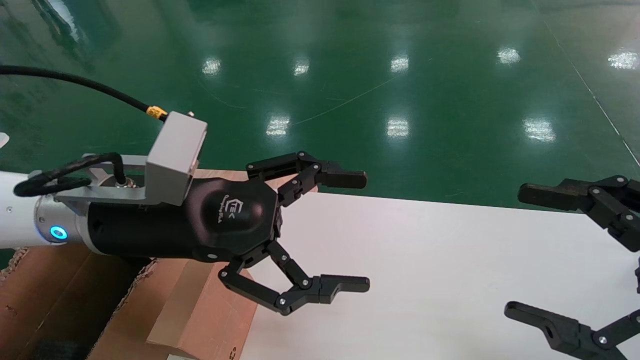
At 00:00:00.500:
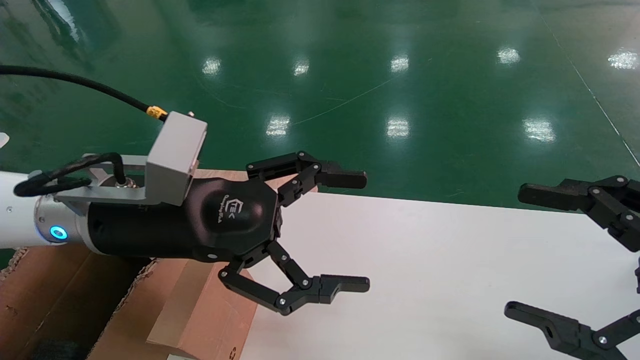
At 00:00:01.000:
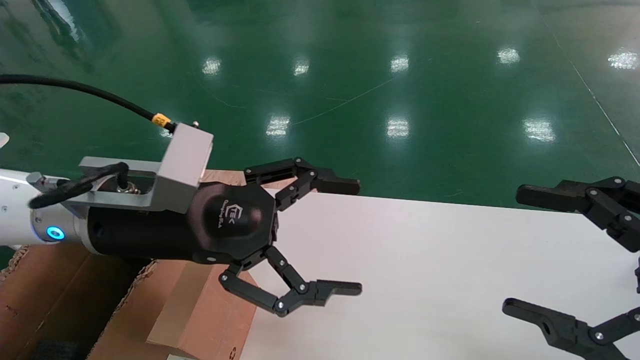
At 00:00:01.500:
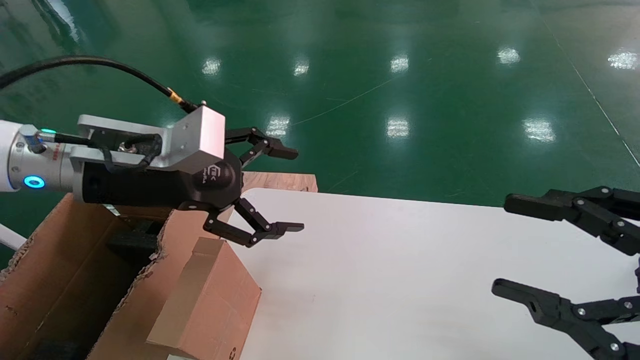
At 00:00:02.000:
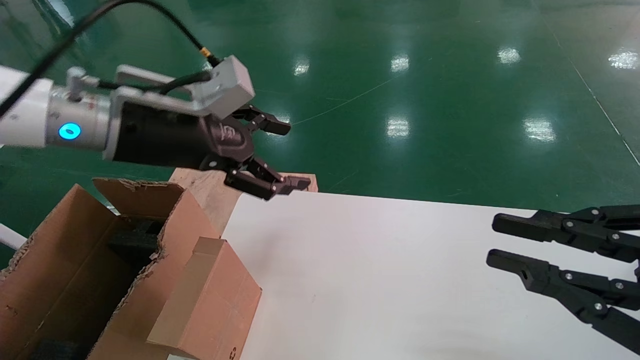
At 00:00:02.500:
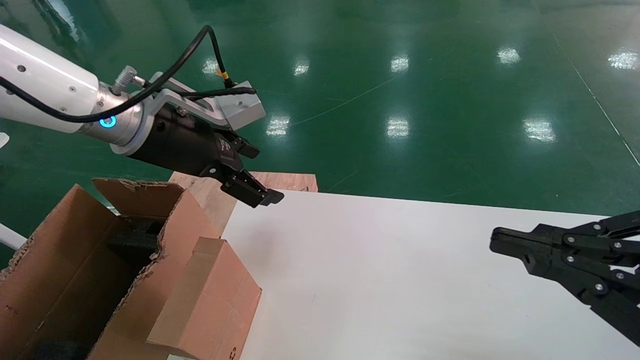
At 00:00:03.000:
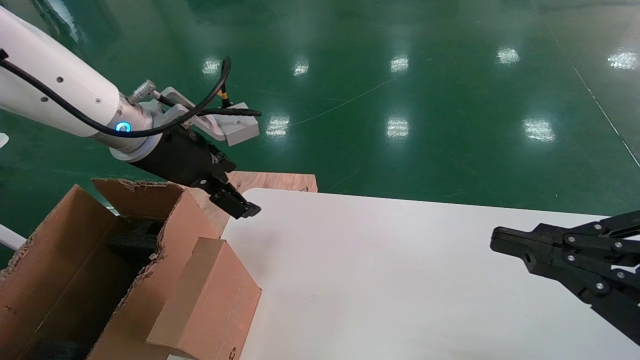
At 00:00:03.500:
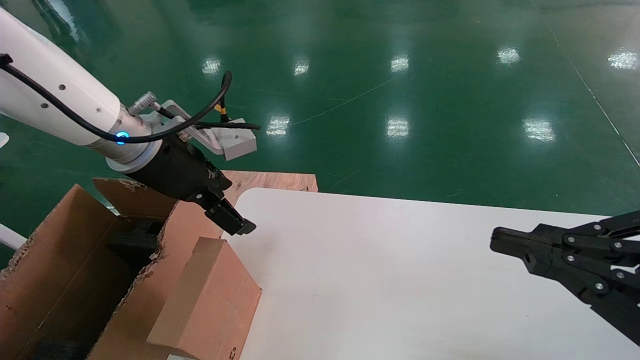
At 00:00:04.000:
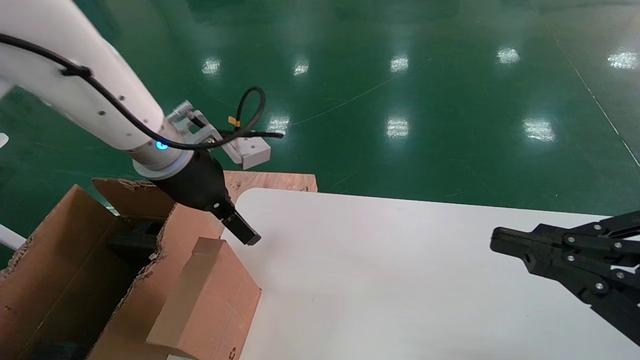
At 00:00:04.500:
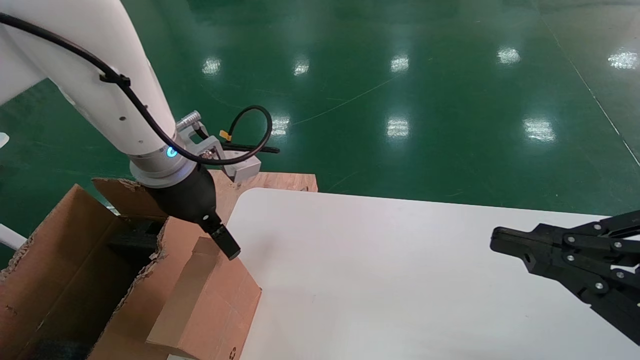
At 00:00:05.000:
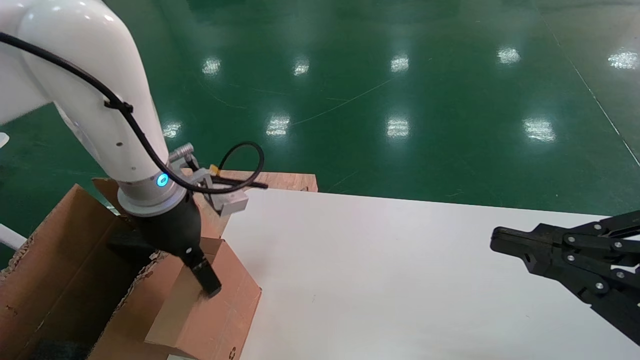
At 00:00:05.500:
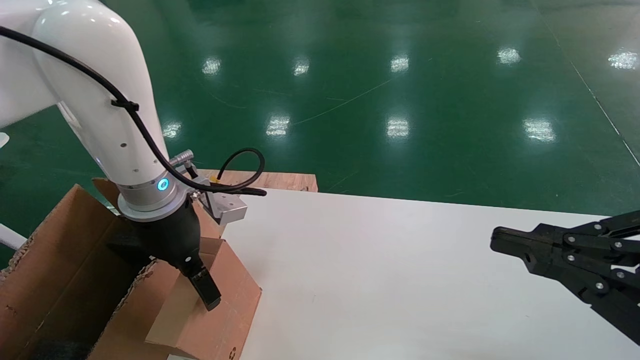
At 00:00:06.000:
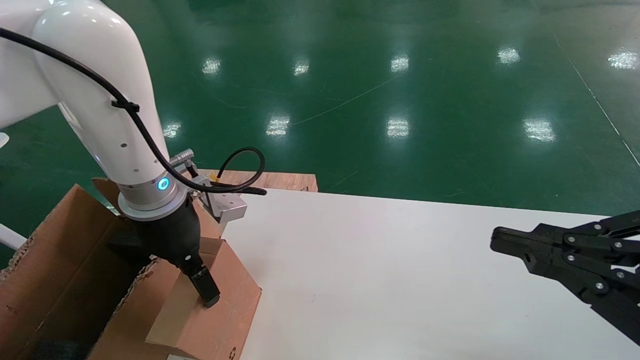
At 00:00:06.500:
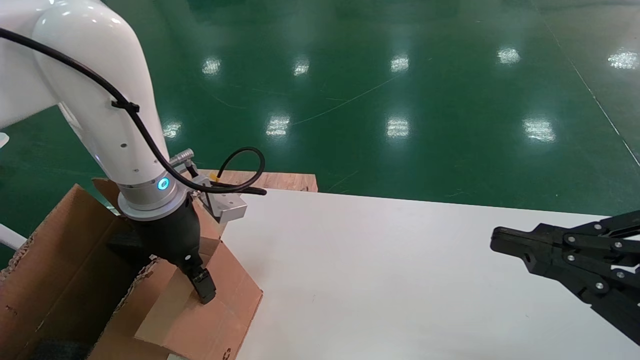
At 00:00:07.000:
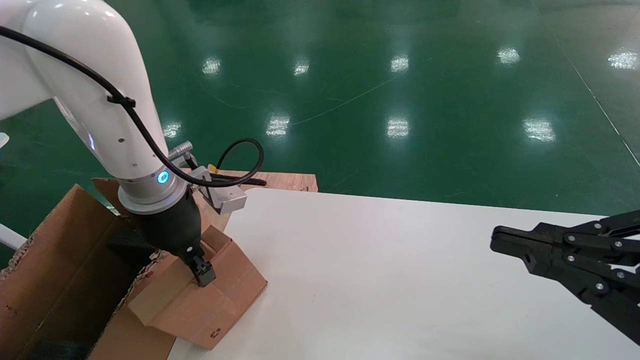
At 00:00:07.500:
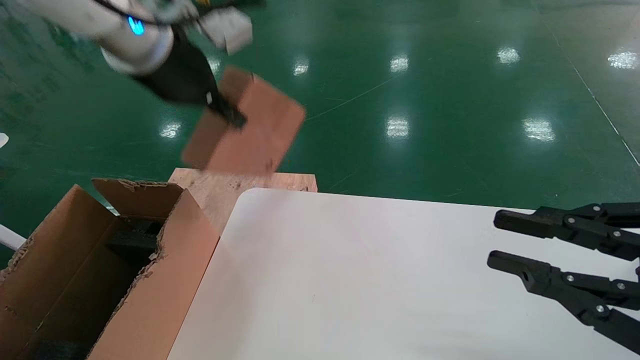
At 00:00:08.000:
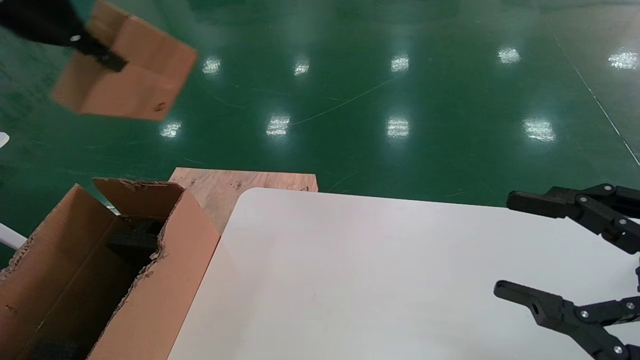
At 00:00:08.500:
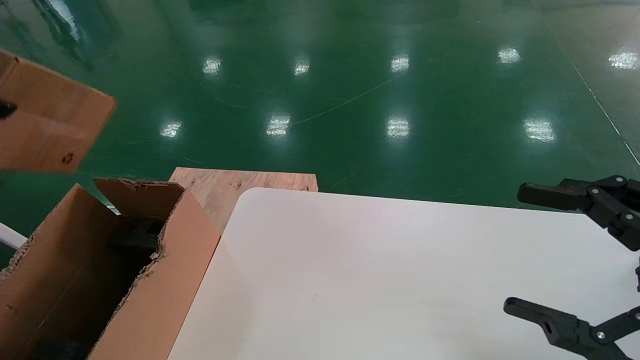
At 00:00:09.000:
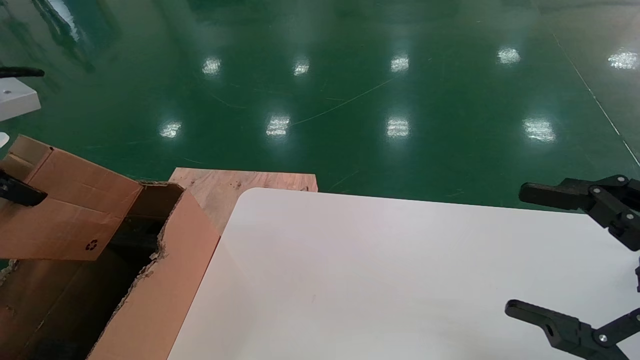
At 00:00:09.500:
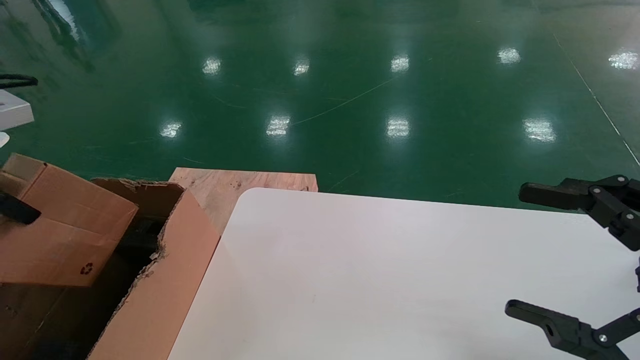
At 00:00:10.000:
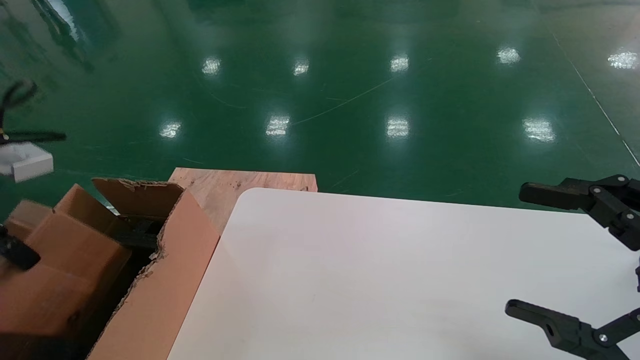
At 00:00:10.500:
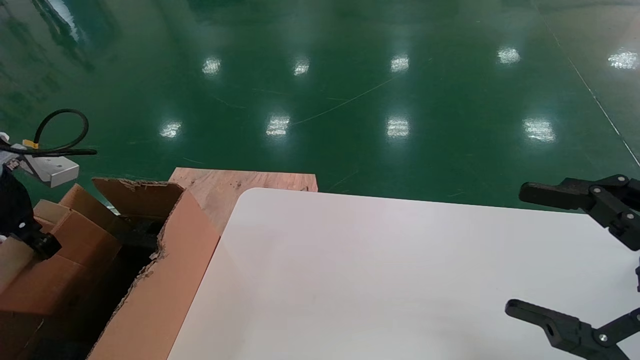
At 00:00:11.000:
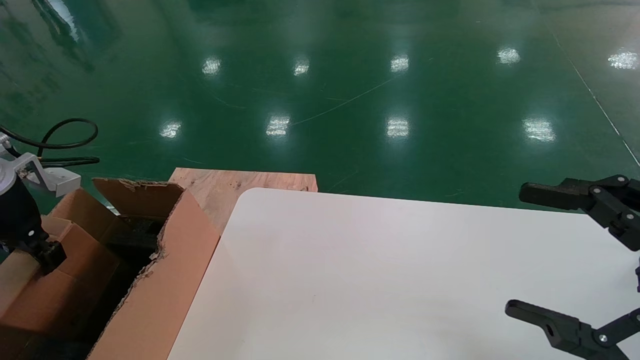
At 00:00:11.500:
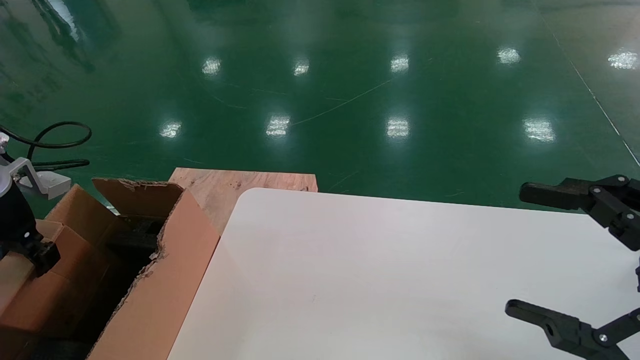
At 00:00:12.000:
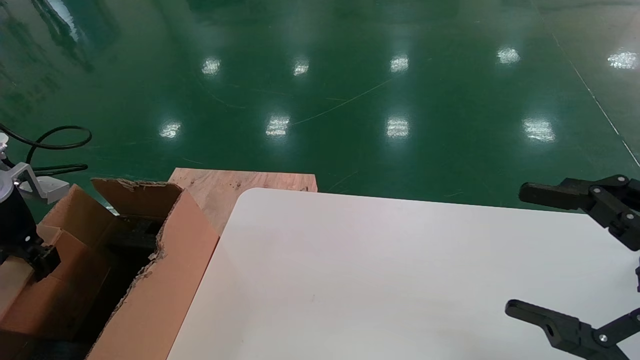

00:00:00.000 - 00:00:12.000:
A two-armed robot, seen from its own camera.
Task of the whole recording: place the small box on the table into the large box on the left.
Step, 00:00:01.500 - 00:00:06.500: Pick up the mouse and the power cord paper box.
00:00:00.000 - 00:00:02.000: The right gripper closes its fingers. Meanwhile the left gripper shifts about 10 cm forward and upward.
00:00:02.000 - 00:00:04.000: The left gripper ends up approximately 5 cm from where it was.
00:00:04.000 - 00:00:06.000: The left gripper is displaced downward by about 5 cm.
00:00:06.000 - 00:00:08.000: The right gripper opens. The left gripper moves upward and to the left, roughly 25 cm, and closes its fingers.
00:00:08.000 - 00:00:10.000: The left gripper shifts roughly 20 cm downward, backward and to the left, while the right gripper opens.
00:00:10.000 - 00:00:12.000: The left gripper travels downward, to the left and forward by some 15 cm.

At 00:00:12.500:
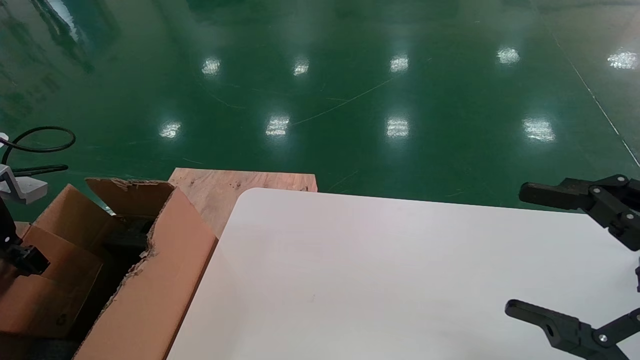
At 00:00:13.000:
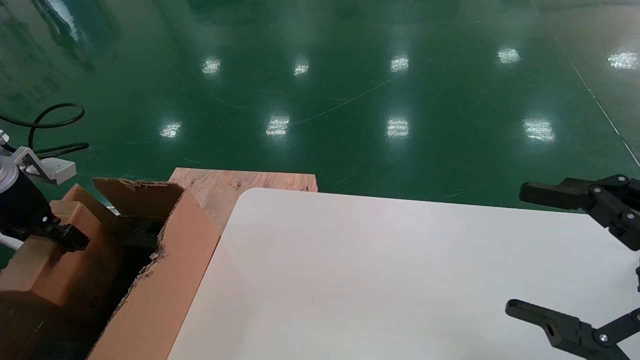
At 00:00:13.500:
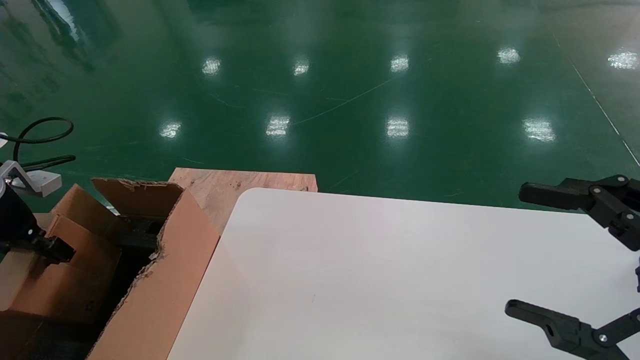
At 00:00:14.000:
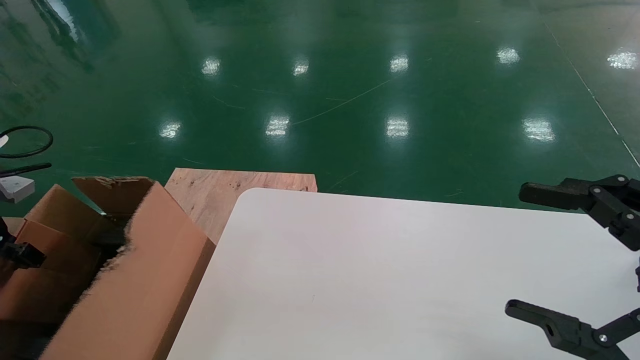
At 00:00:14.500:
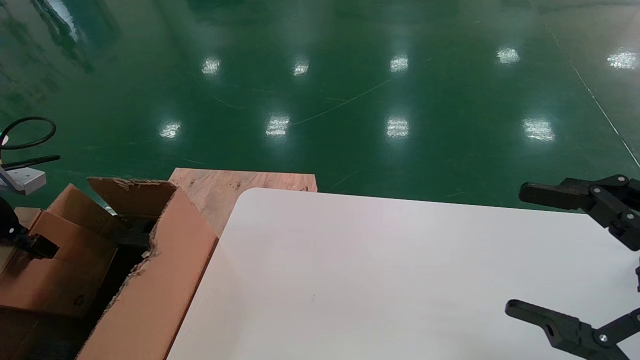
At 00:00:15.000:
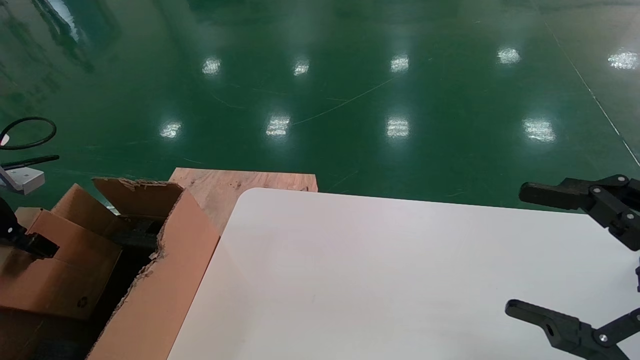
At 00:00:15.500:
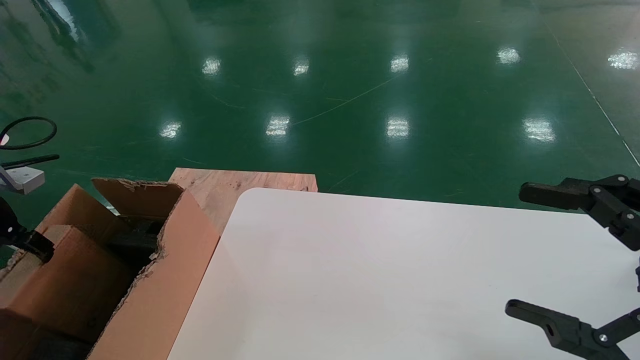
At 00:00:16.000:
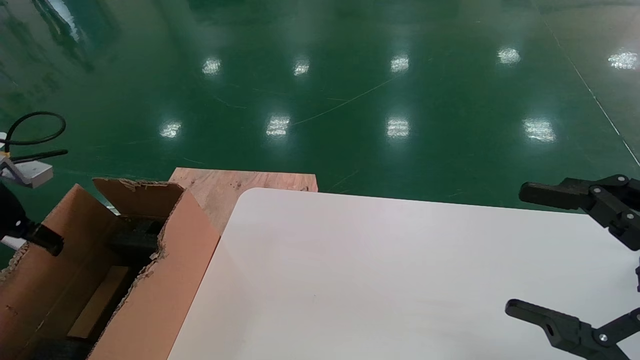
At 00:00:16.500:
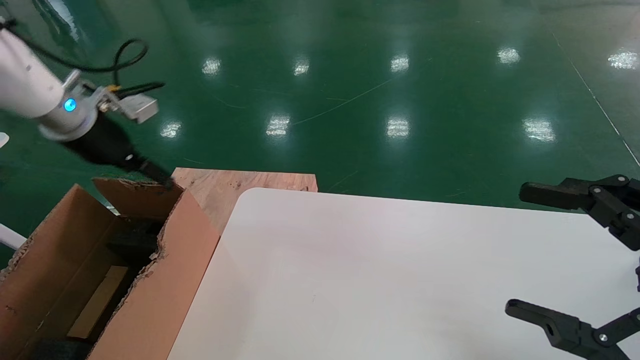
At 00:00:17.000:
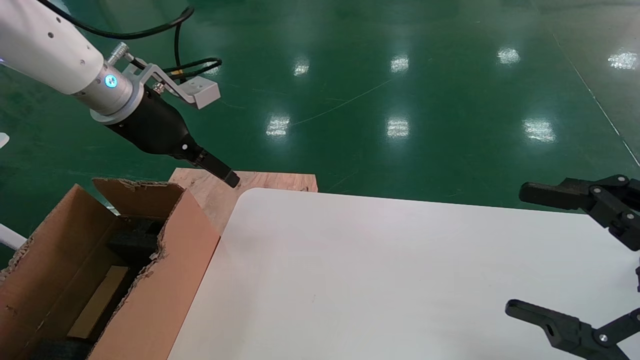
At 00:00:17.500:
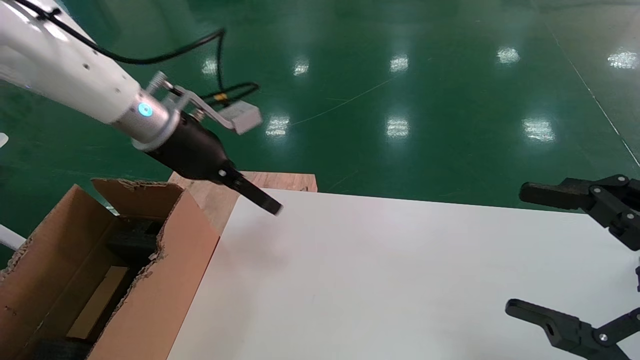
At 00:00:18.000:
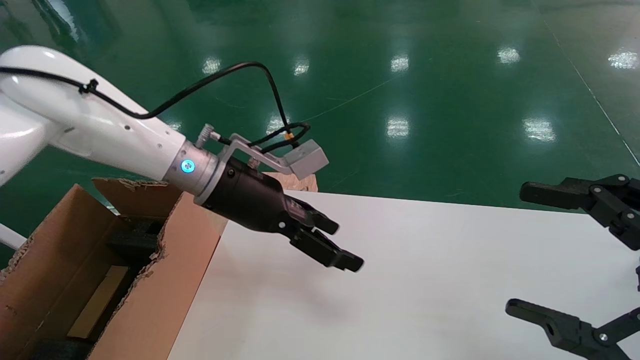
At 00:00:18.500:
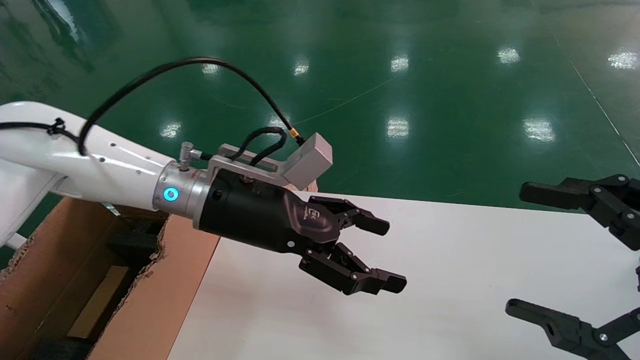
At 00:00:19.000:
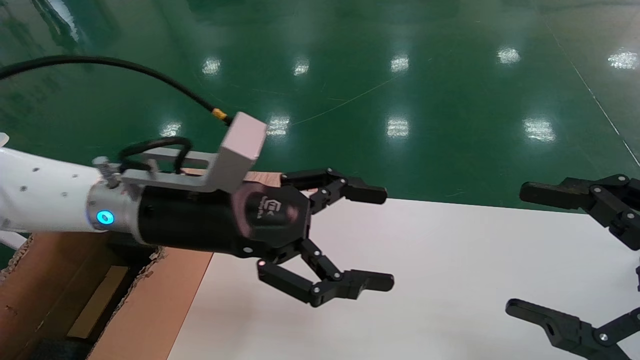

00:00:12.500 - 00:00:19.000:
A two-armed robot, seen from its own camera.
Task of the whole recording: place the small box on the table into the large box on the left.
Step, 00:00:12.500 - 00:00:15.500: Place the mouse and the power cord paper box into the container.
00:00:12.500 - 00:00:14.500: The grippers make only small movements.
00:00:14.500 - 00:00:17.000: The left gripper shifts some 30 cm to the right, upward and forward, and opens.
00:00:17.000 - 00:00:19.000: The left gripper heads to the right, backward and downward, covering about 20 cm.
